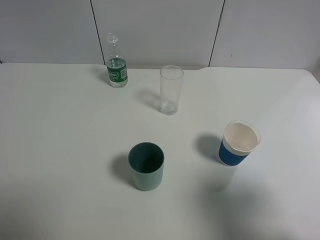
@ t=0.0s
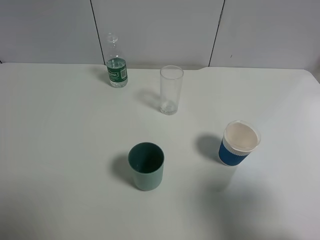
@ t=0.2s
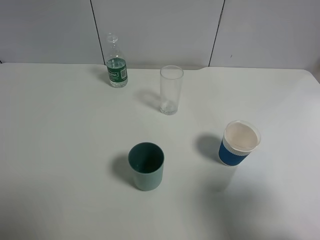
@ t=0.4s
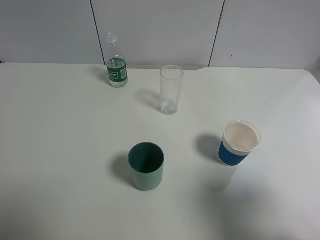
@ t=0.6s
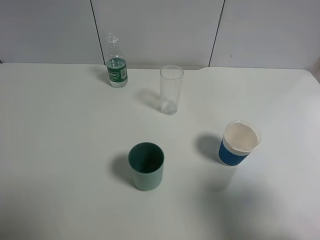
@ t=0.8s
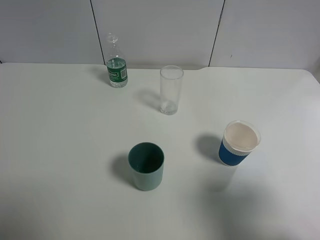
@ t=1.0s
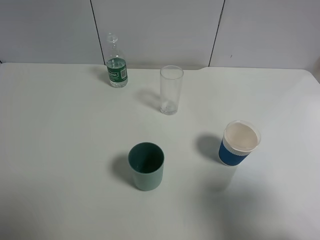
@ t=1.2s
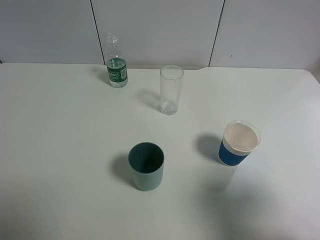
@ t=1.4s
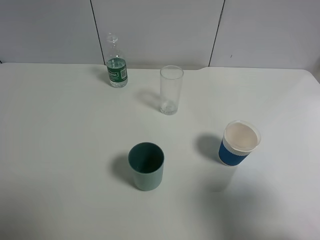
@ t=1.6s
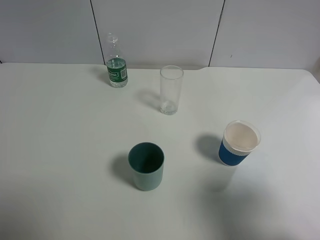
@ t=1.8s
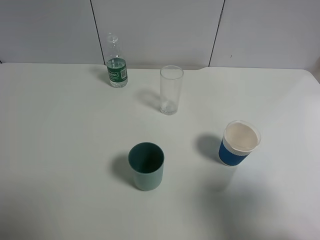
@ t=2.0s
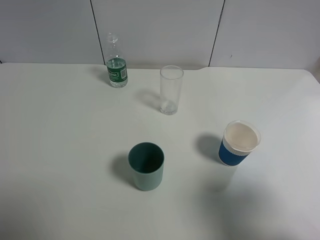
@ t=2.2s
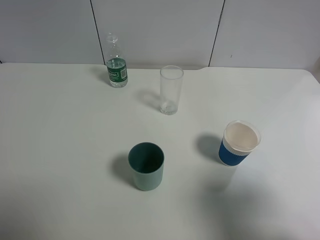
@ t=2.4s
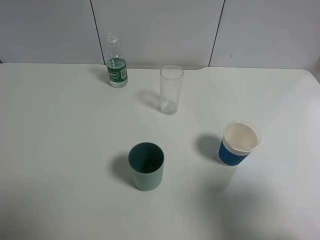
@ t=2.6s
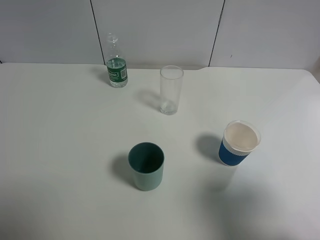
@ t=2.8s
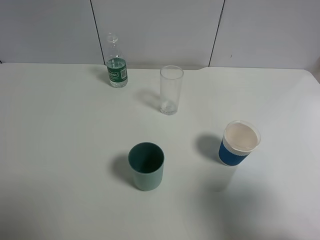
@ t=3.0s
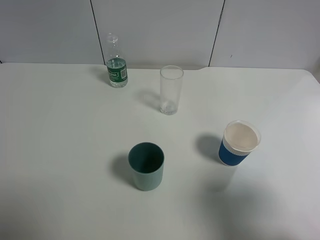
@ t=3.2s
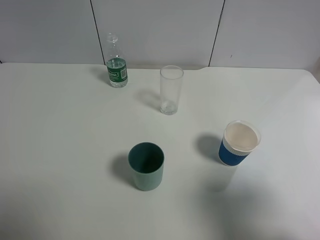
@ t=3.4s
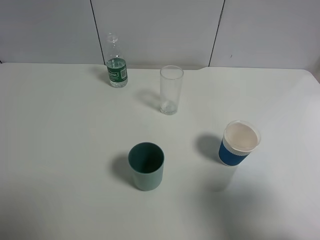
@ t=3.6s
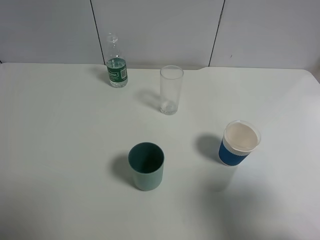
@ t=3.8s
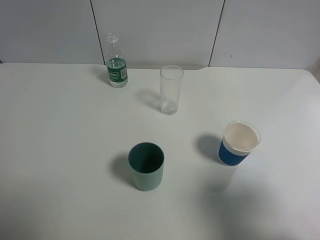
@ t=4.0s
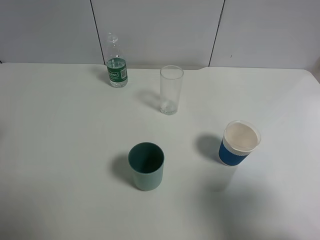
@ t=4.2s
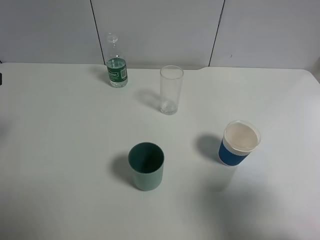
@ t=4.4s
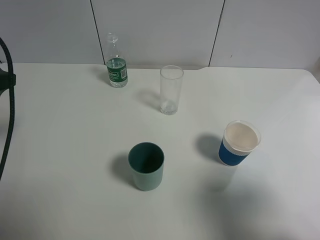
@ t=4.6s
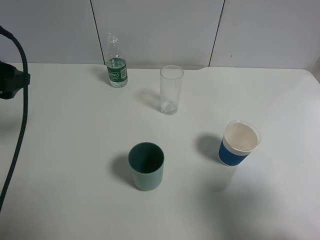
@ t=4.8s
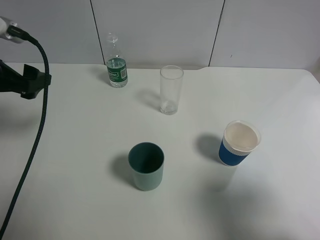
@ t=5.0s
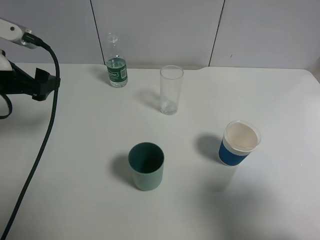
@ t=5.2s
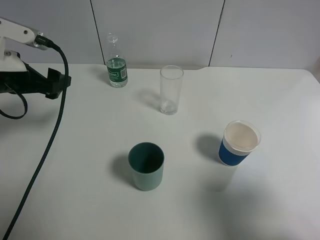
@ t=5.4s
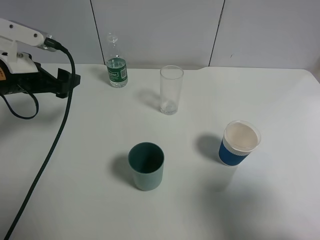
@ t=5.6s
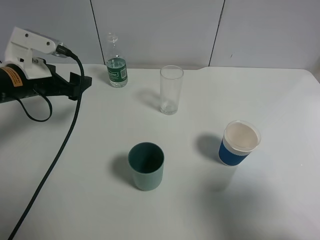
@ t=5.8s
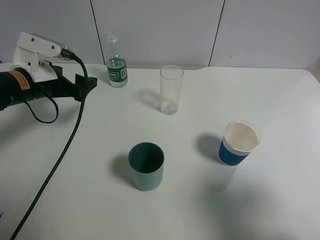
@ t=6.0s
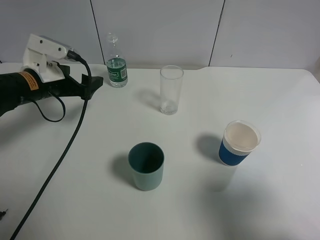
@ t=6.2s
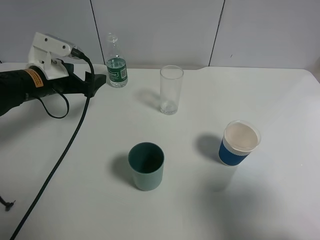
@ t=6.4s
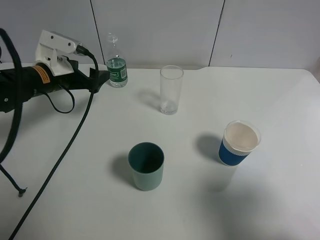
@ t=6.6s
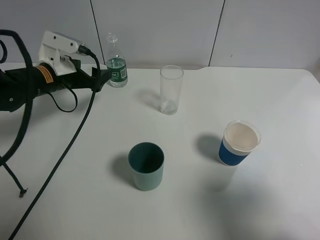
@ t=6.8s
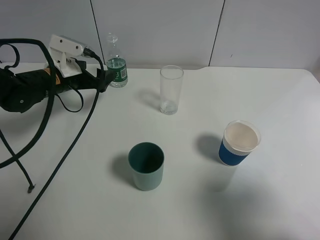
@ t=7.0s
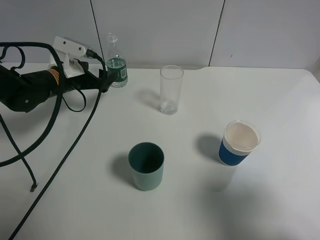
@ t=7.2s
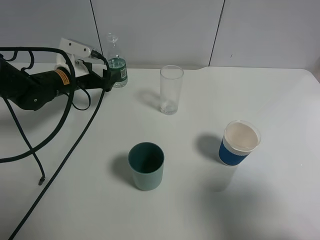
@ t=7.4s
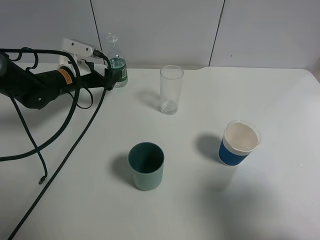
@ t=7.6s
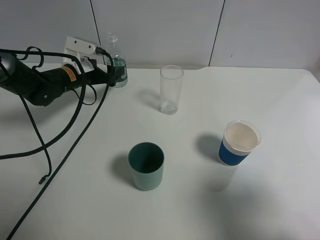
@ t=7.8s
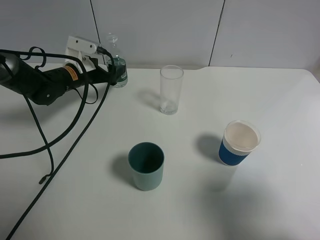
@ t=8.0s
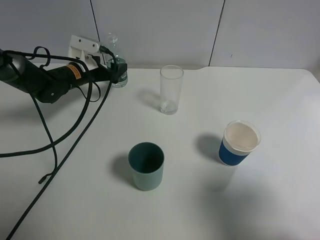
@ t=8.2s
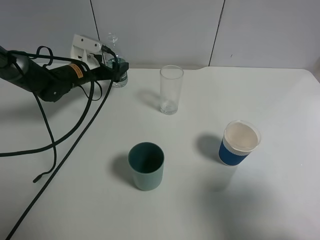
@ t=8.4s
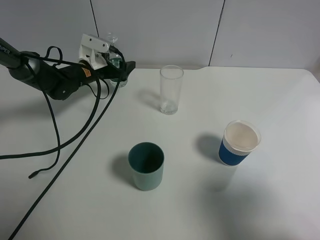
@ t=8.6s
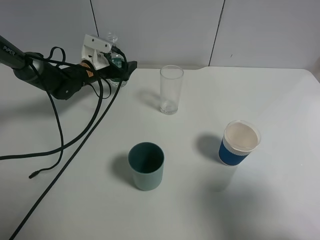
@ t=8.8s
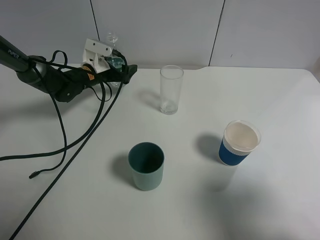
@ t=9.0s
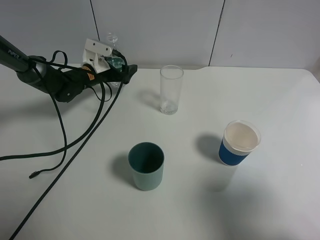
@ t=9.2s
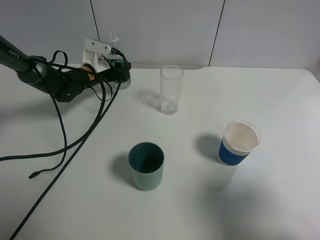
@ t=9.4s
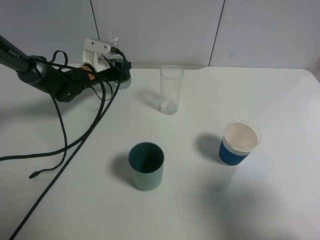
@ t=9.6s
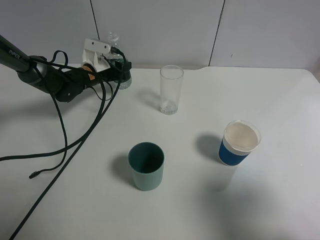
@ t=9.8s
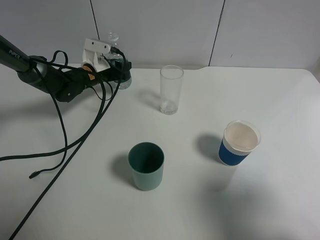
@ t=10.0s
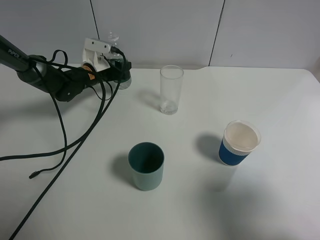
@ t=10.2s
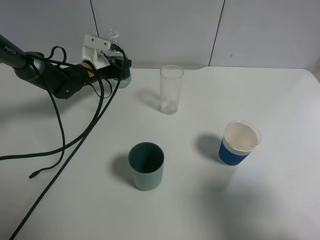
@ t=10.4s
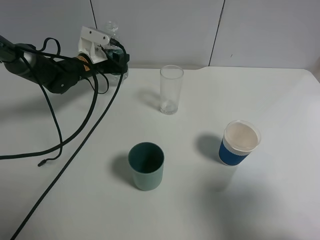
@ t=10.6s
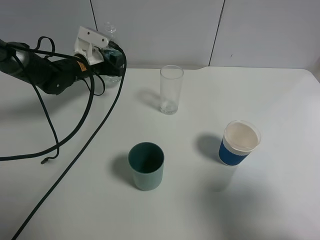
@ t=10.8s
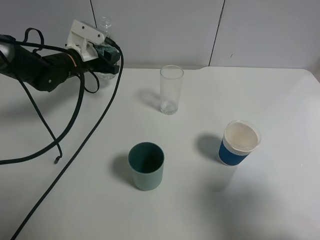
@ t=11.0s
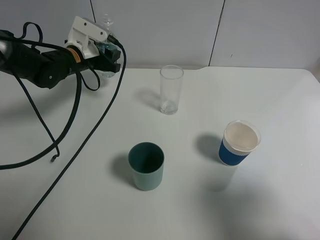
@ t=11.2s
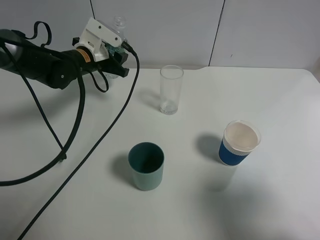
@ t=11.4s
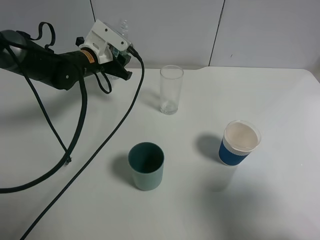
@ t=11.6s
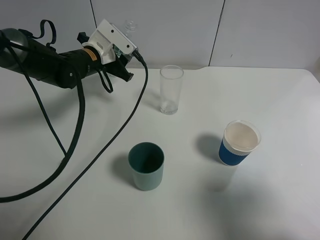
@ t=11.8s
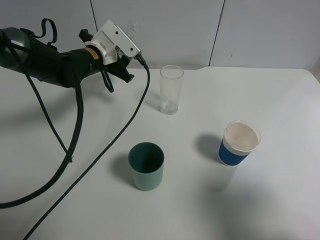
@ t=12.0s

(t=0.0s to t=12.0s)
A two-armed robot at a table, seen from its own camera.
Task of the whole recording: use a gripper to hold the bottle of the drink and pour it into a random cup.
Step, t=0.0s - t=9.6s: Grasp the mineral water bottle with the left gripper.
t=0.0s - t=1.6s: The two grippers keep their place.
t=4.4s - t=6.0s: The left gripper shifts approximately 20 cm forward, downward and to the right.
t=6.0s - t=7.6s: The left gripper goes about 10 cm forward and downward.
t=7.6s - t=9.0s: The left gripper travels forward by about 5 cm.
t=9.0s - t=10.4s: The left gripper closes up.
t=10.4s - t=12.0s: The left gripper moves upward and backward, approximately 10 cm.

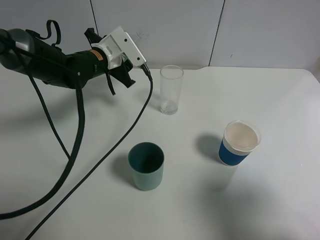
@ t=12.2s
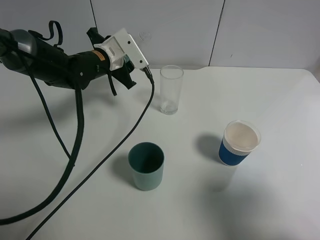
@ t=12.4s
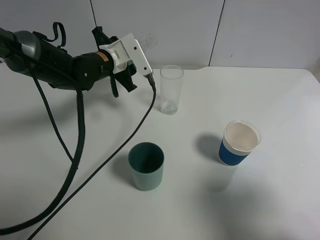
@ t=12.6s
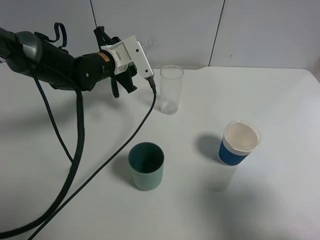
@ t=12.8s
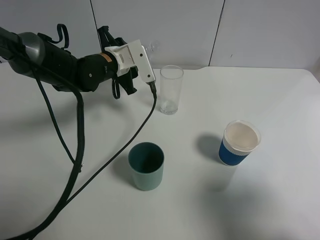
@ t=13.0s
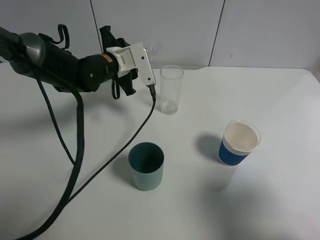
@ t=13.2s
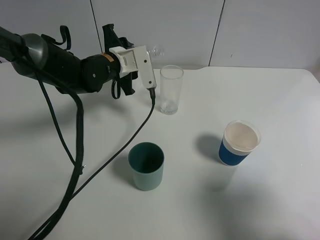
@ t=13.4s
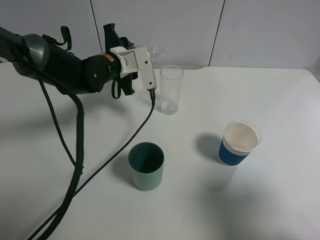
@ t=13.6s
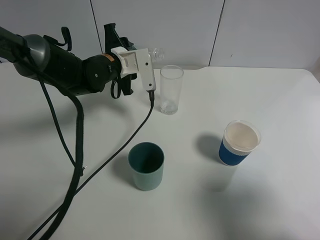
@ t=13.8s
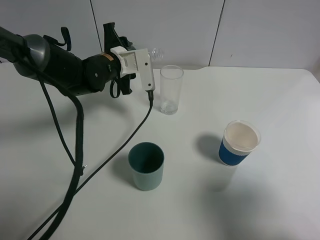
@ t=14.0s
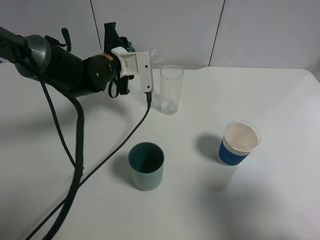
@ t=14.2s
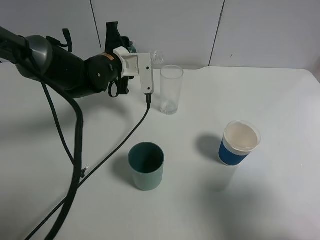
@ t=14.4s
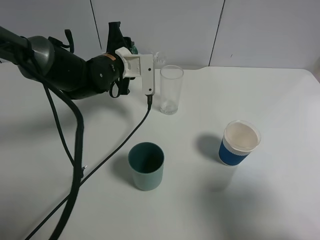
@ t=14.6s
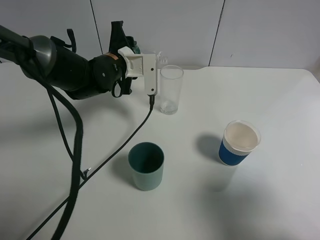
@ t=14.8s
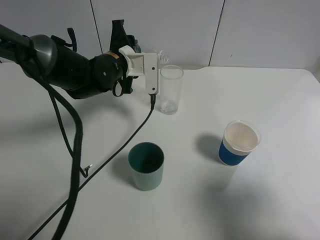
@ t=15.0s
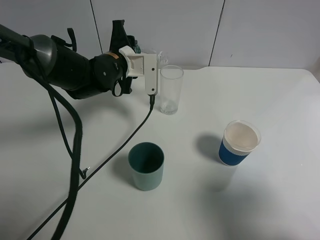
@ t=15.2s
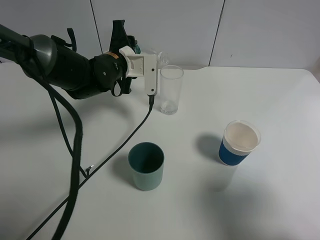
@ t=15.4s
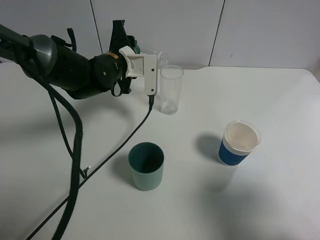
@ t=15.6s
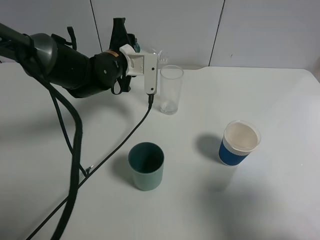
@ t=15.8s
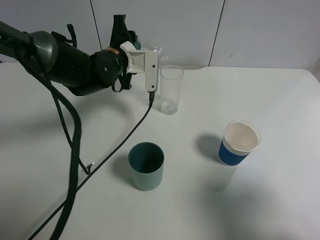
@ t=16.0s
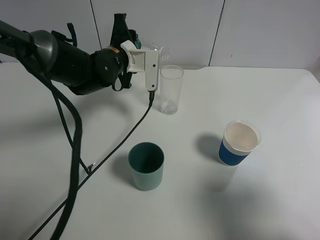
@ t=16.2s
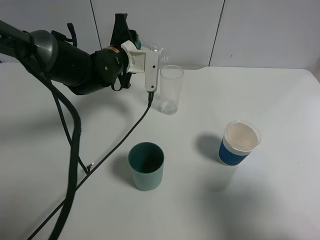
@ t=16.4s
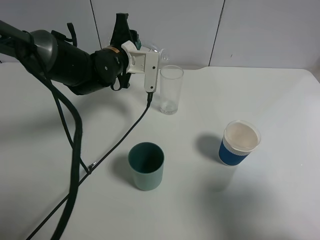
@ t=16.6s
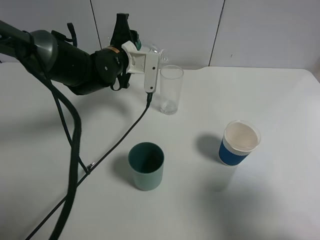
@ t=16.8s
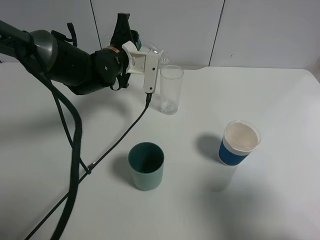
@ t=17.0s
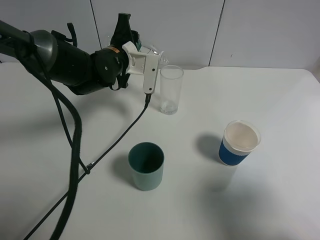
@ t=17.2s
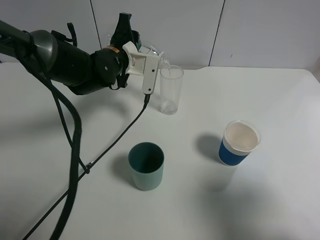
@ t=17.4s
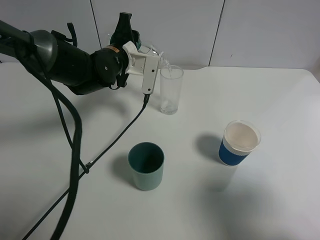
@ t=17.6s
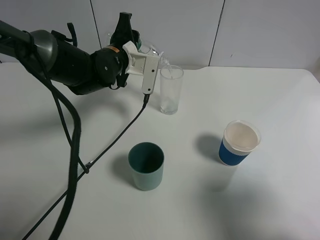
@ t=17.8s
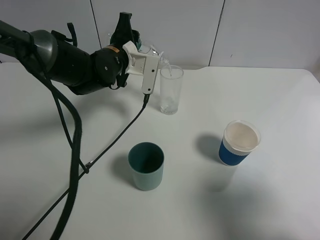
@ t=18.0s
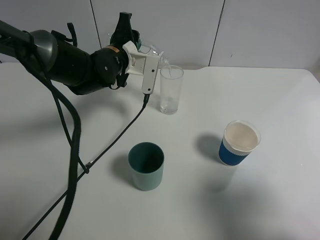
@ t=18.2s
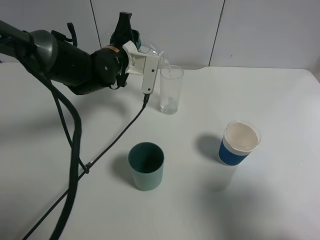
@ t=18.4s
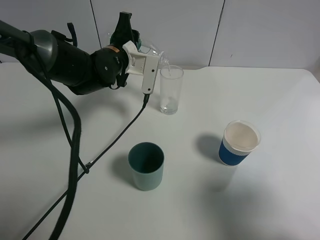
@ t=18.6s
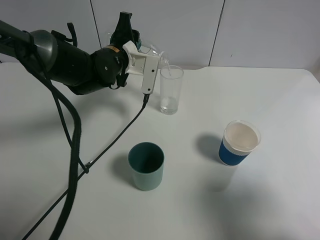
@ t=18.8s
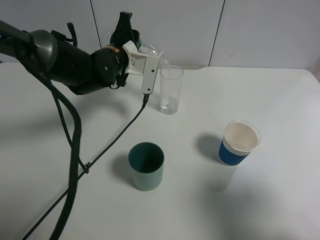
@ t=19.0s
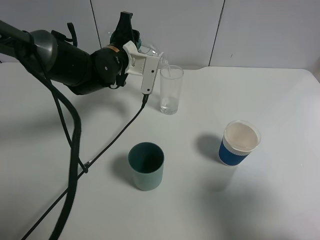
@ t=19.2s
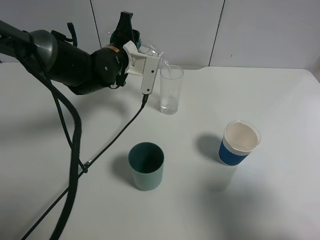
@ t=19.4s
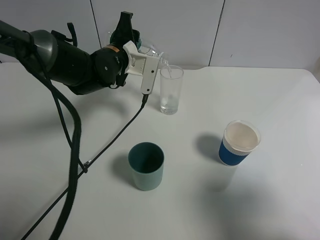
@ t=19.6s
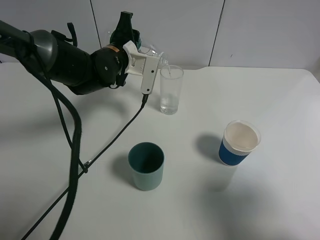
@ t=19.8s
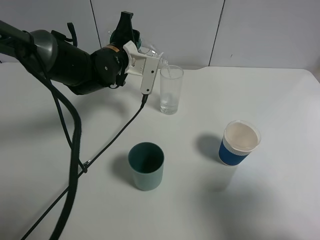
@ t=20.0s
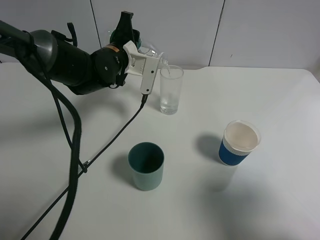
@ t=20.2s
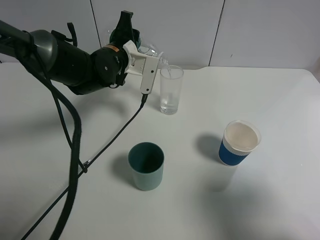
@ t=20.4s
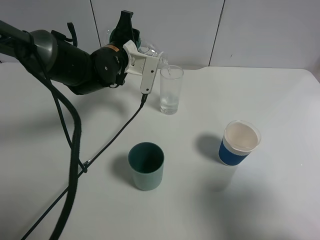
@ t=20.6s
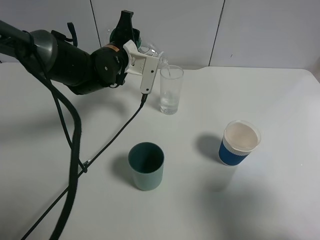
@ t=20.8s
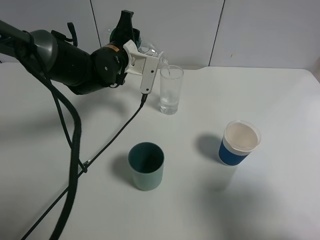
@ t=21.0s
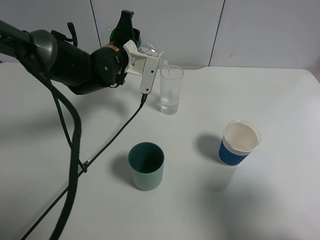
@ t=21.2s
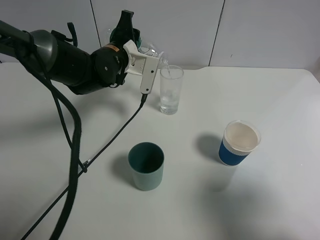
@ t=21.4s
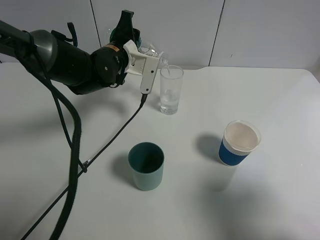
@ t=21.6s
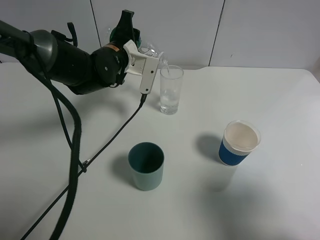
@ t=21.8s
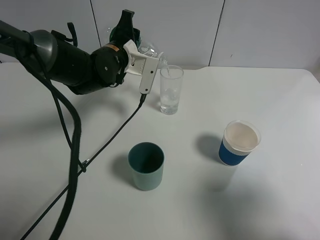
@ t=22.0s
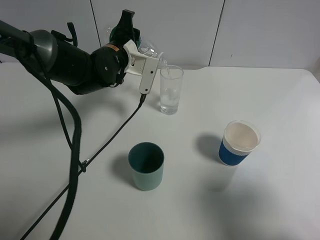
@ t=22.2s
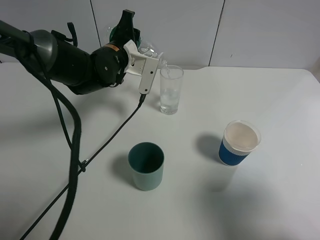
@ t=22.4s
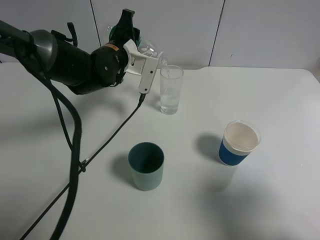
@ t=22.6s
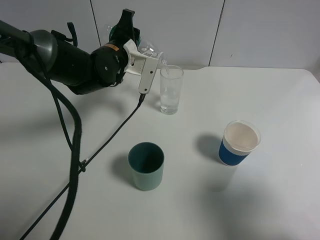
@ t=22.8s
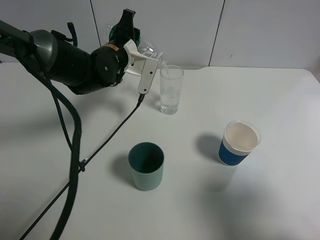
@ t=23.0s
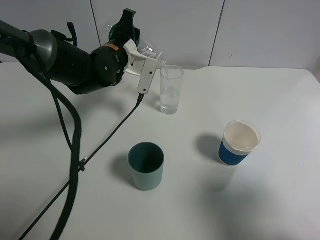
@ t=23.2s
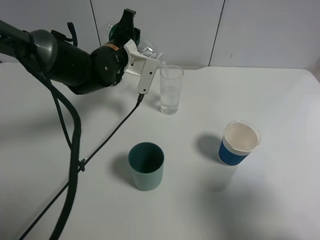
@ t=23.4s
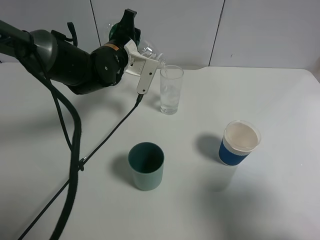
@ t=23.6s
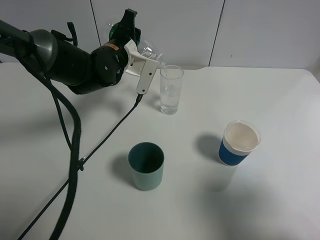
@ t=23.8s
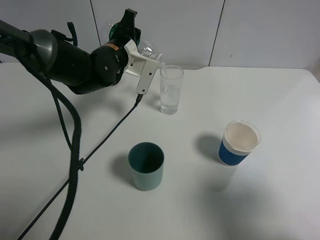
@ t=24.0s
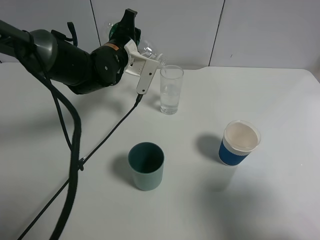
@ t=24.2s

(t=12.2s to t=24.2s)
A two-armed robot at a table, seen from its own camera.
Task of the whole recording: use a gripper to hold the bottle of the drink and pour it into a random cup.
t=13.8s - t=16.6s: The grippers stay close to where they were, moving slightly.
t=16.6s - t=18.2s: The grippers stay close to where they were, moving slightly.
t=18.2s - t=21.2s: The two grippers keep their place.
t=21.2s - t=22.6s: Neither gripper changes place.
t=22.6s - t=24.2s: Both grippers stay put.
